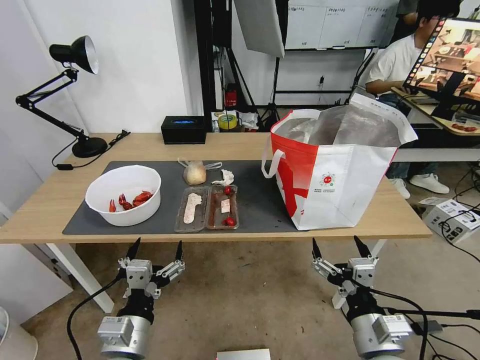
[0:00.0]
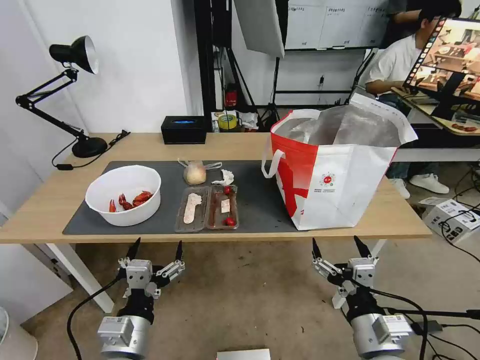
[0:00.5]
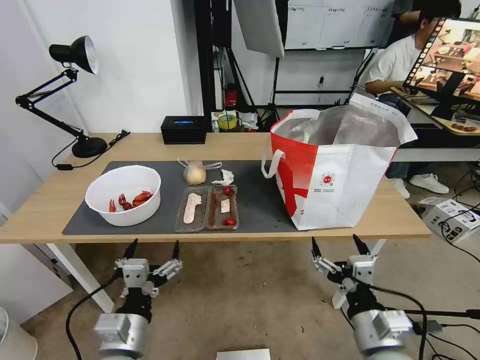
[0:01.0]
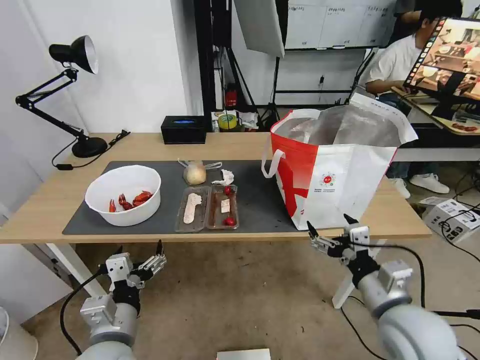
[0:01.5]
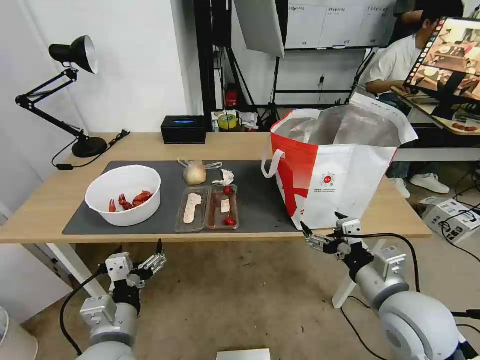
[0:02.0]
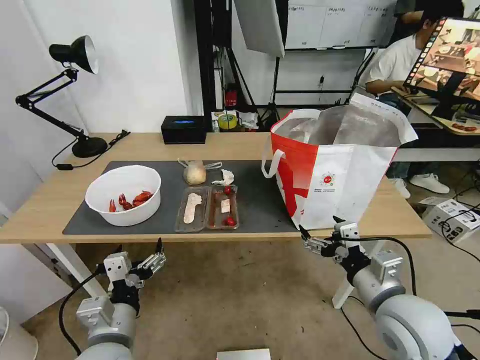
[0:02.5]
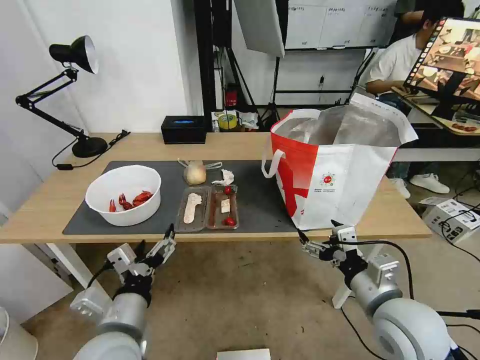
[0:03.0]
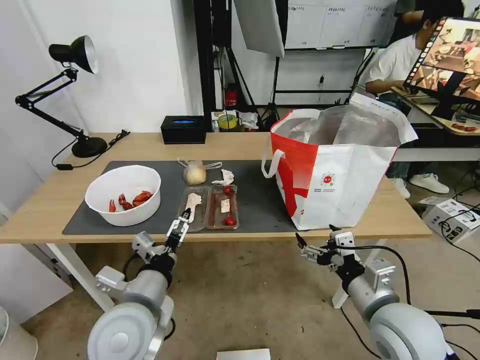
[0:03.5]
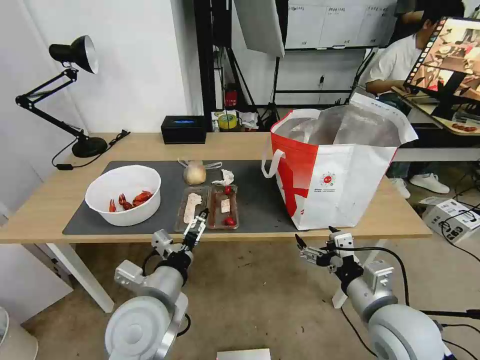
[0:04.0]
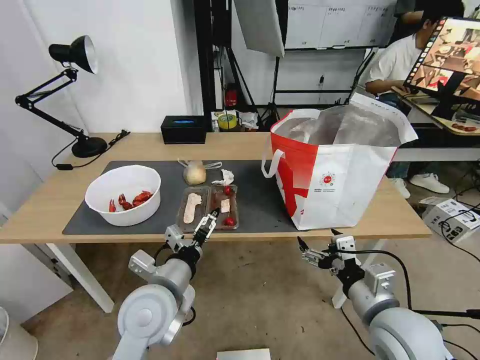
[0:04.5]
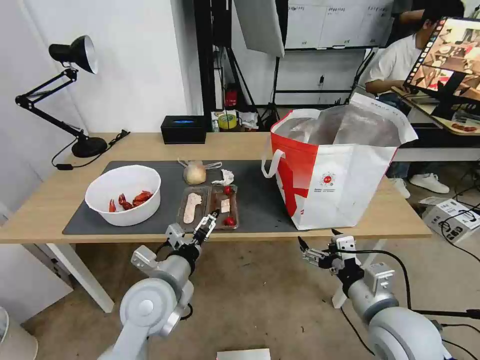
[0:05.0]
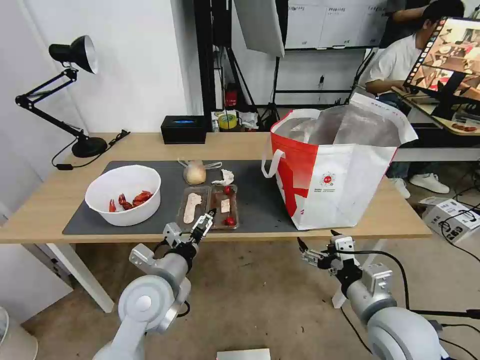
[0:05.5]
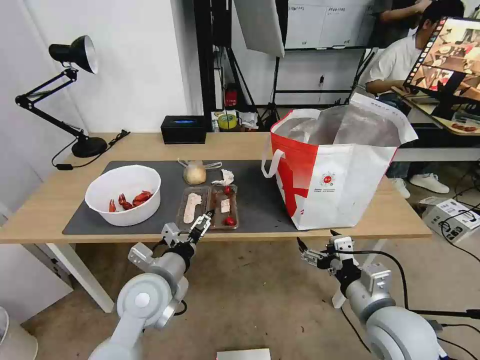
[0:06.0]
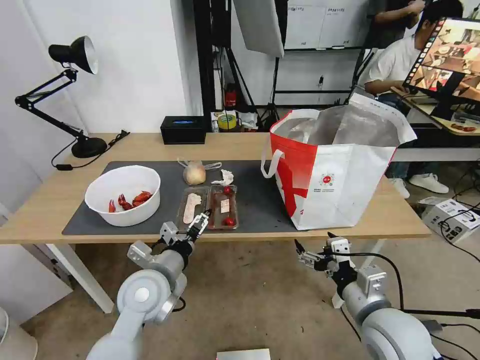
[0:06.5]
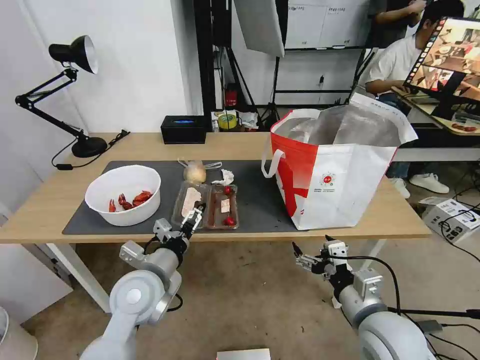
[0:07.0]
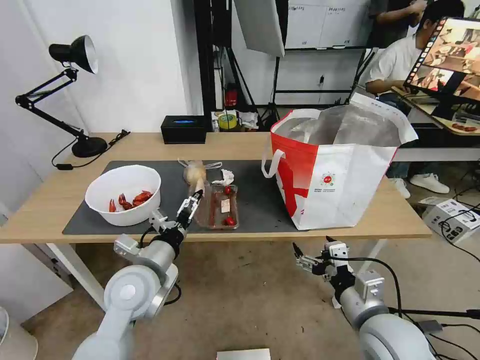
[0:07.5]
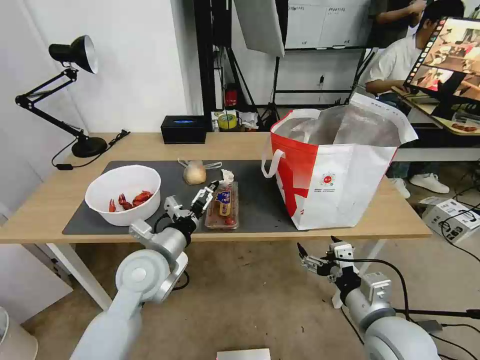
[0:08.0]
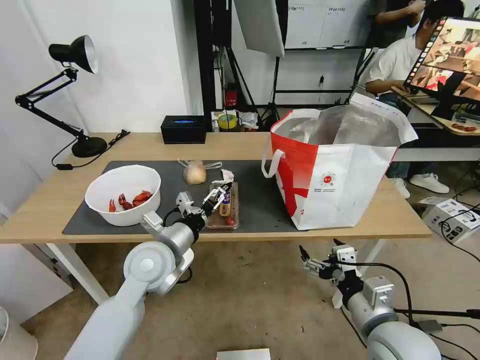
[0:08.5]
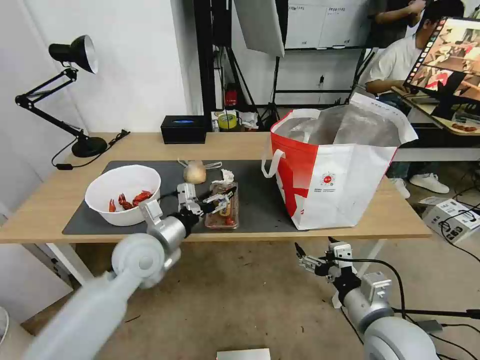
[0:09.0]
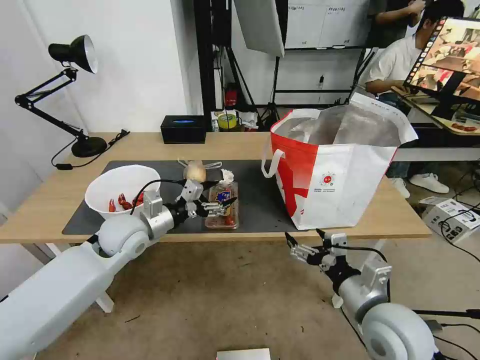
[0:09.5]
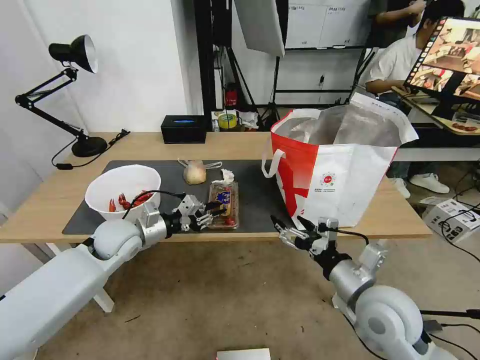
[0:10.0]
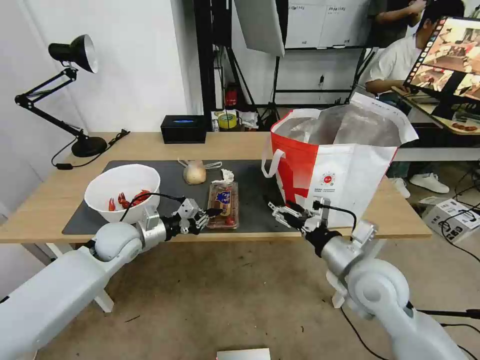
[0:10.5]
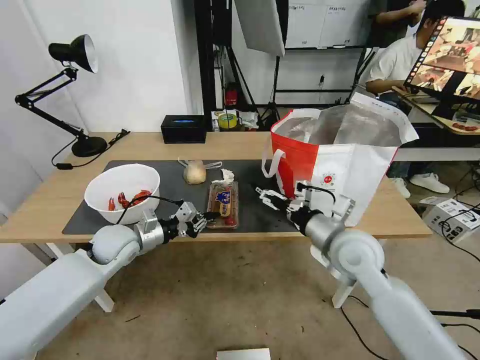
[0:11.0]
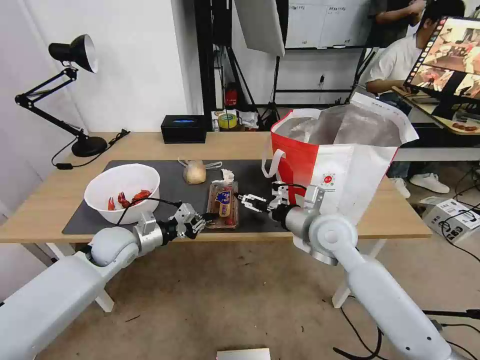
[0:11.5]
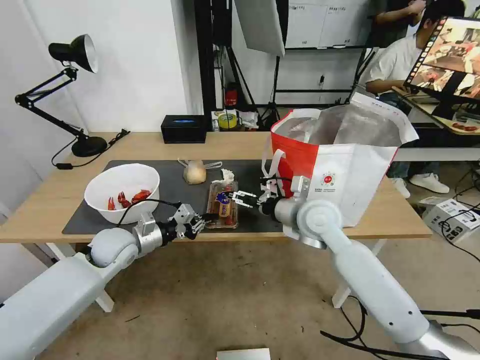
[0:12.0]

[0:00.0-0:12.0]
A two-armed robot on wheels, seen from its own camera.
Task of the whole recording: Pick up the trash from the table and place it into the takeout bag.
0:02.0 to 0:04.0: The left gripper goes about 10 cm forward and to the right.
0:04.0 to 0:06.0: The left gripper heads forward, covering some 5 cm.
0:06.0 to 0:08.0: The grippers make only small movements.
0:08.0 to 0:10.0: The left gripper goes about 15 cm to the left and forward, and closes up. The right gripper moves roughly 5 cm.
0:10.0 to 0:12.0: The right gripper moves forward and to the left, approximately 20 cm.

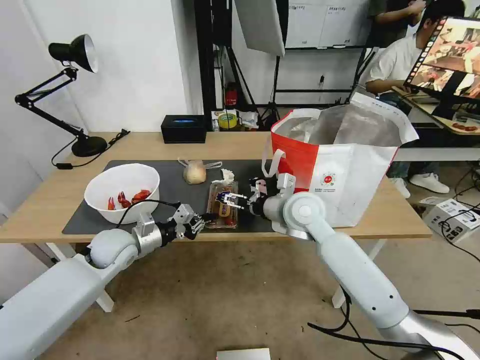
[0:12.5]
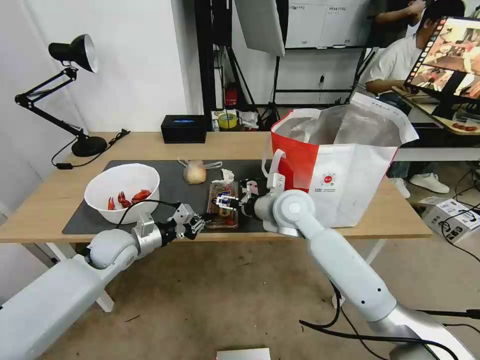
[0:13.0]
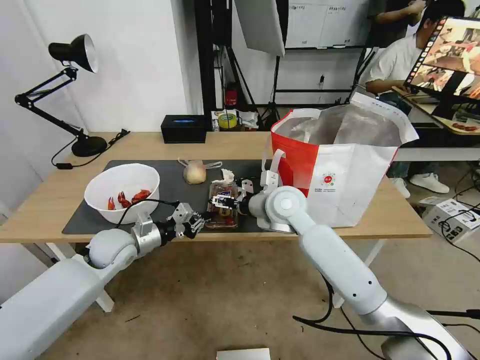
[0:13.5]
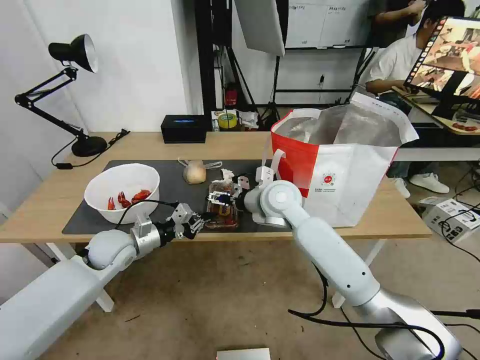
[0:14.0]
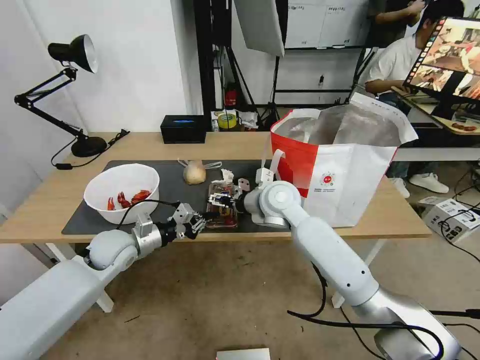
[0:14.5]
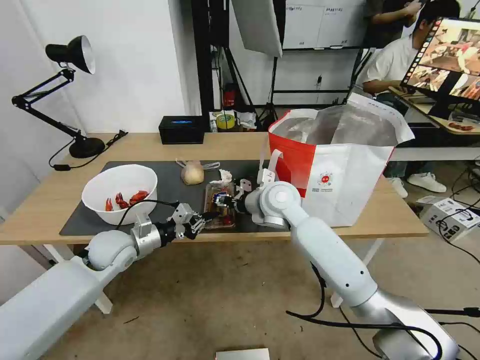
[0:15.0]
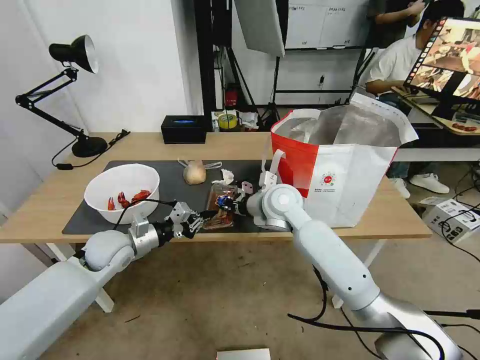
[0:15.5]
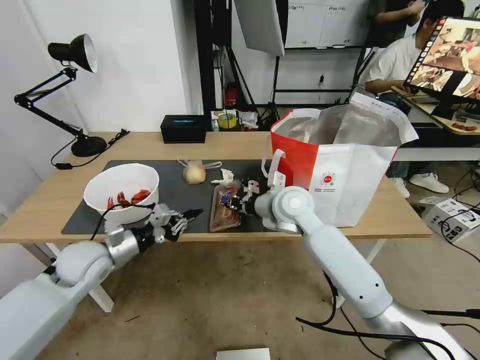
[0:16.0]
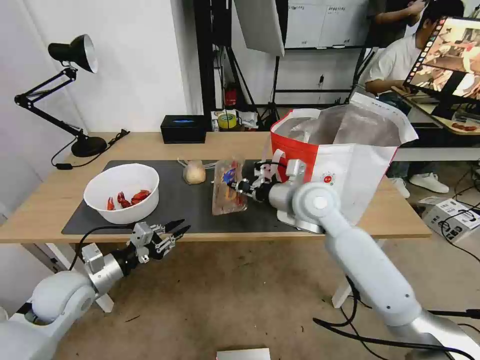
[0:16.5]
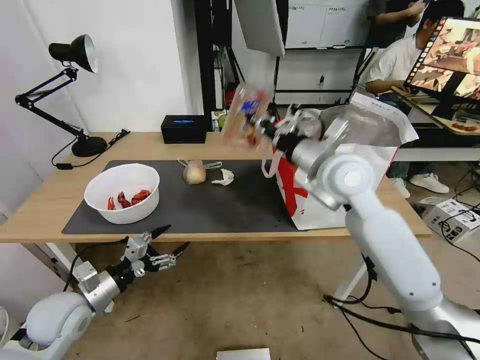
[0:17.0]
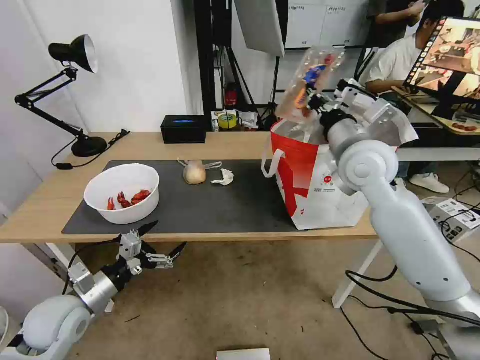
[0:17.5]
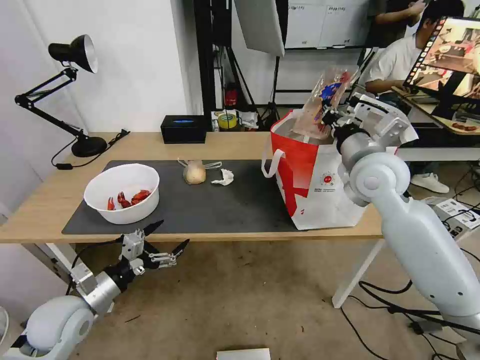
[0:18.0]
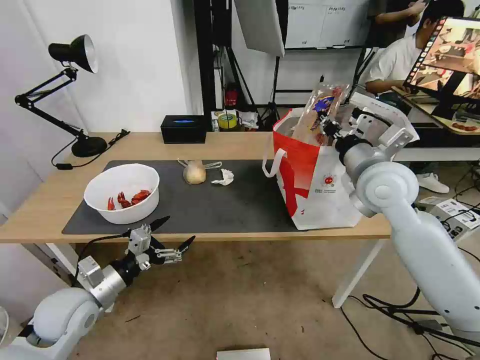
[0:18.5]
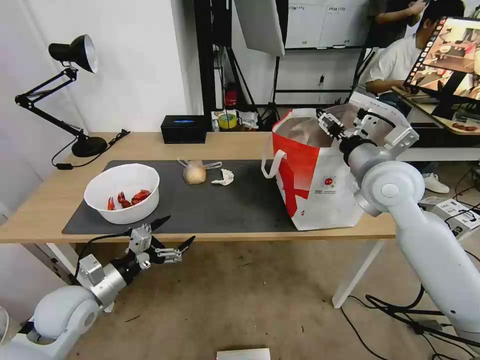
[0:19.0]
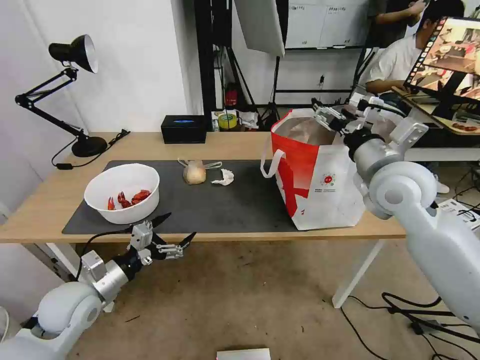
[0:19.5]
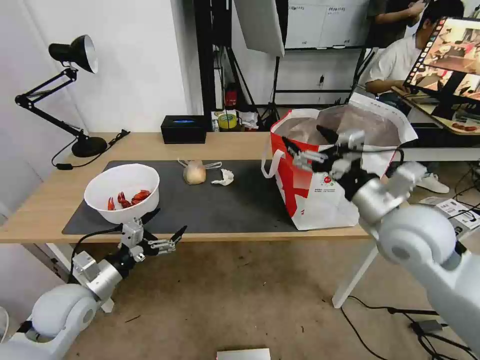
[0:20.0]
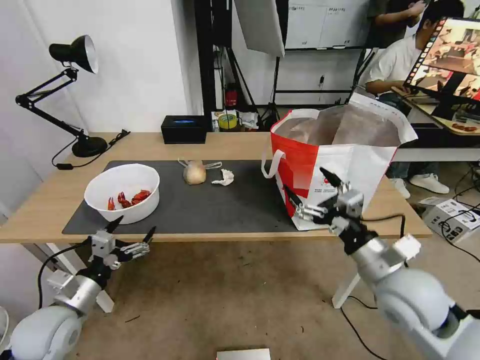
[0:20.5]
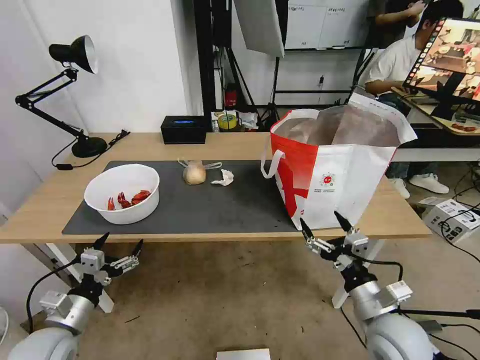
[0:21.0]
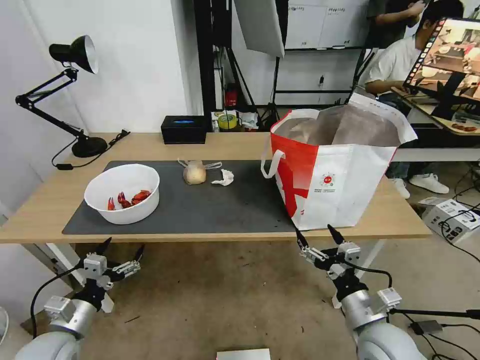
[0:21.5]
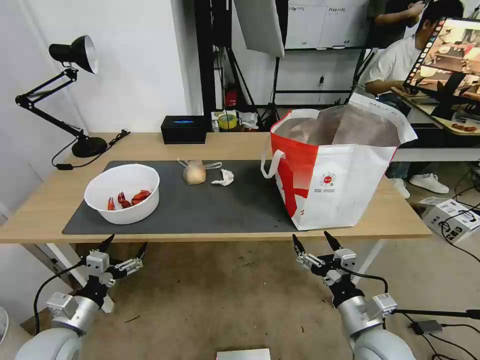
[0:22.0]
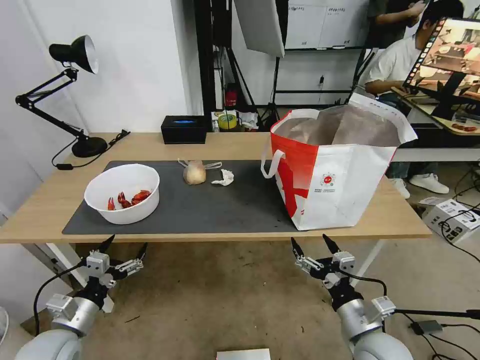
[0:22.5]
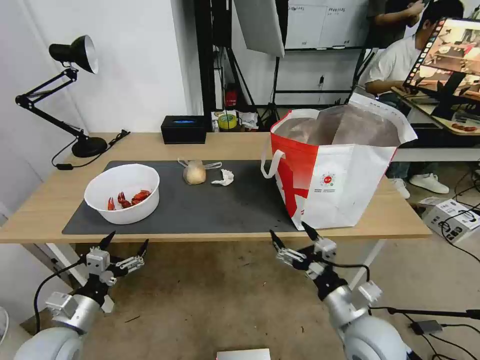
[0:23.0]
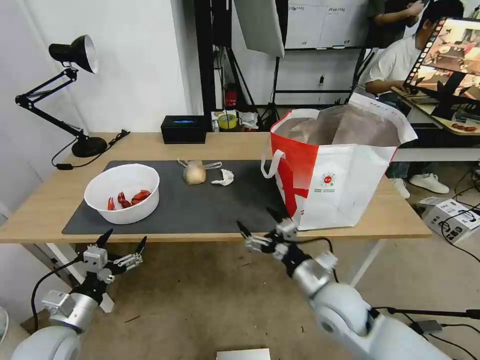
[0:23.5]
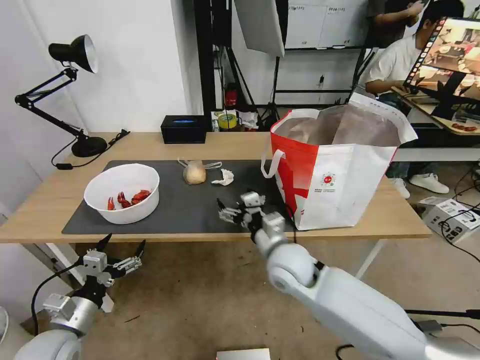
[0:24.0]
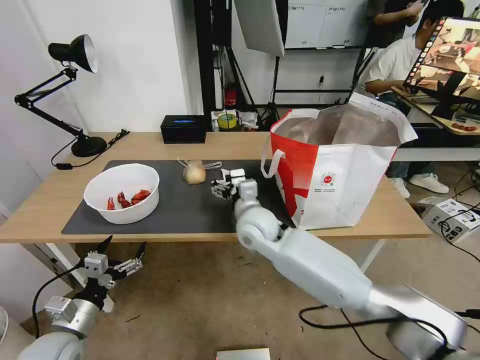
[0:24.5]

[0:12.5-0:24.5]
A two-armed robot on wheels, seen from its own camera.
Task of the whole recording: Pick up the trash from the table and place it into the takeout bag.
0:12.5 to 0:14.5: The right gripper moves about 5 cm.
0:14.5 to 0:16.5: The left gripper shifts about 10 cm backward and to the left, while the right gripper goes some 5 cm to the right, and closes up.
0:16.5 to 0:18.5: The left gripper opens up. Meanwhile the right gripper heads to the right and upward, covering approximately 15 cm.
0:18.5 to 0:20.5: The right gripper travels backward and downward by about 20 cm, and opens.
0:20.5 to 0:22.5: The right gripper is displaced downward and backward by about 15 cm, while the left gripper ends up roughly 5 cm from where it was.
0:22.5 to 0:24.5: The right gripper shifts about 35 cm forward and to the left.

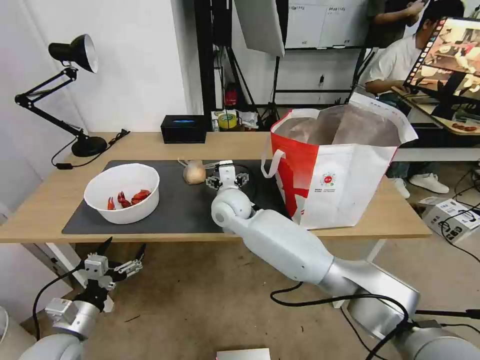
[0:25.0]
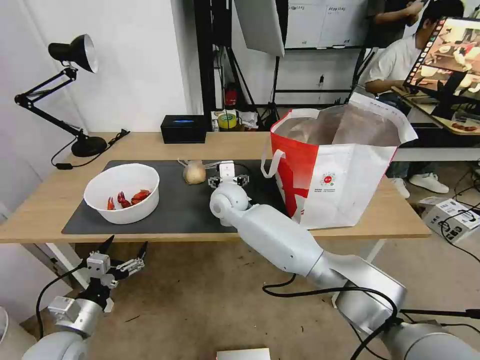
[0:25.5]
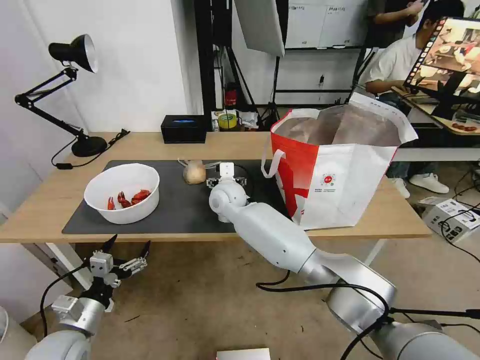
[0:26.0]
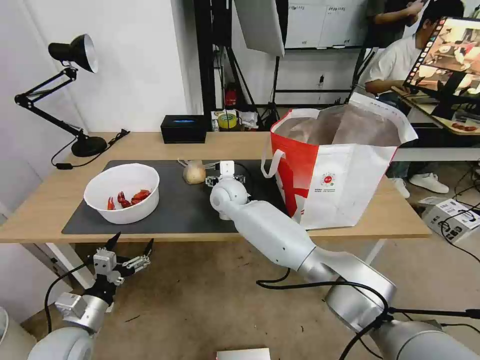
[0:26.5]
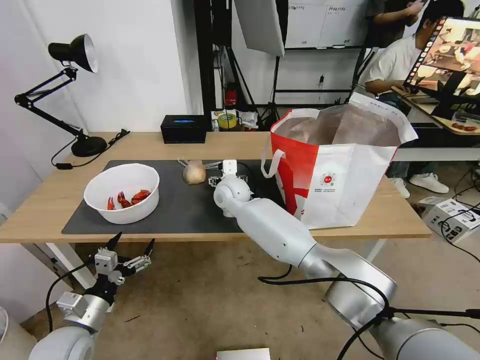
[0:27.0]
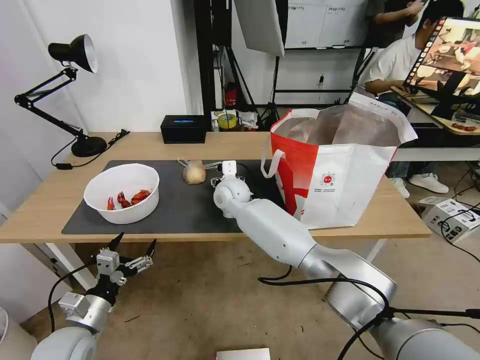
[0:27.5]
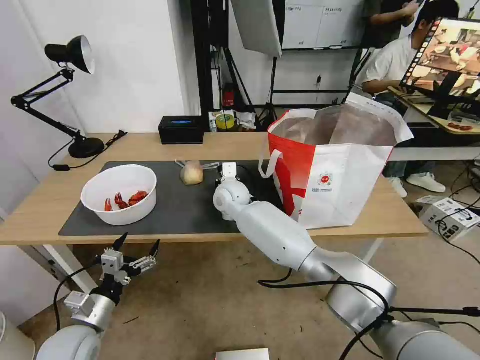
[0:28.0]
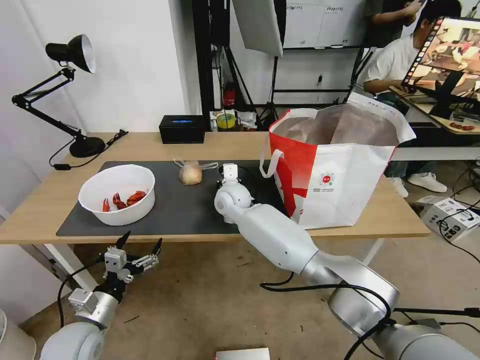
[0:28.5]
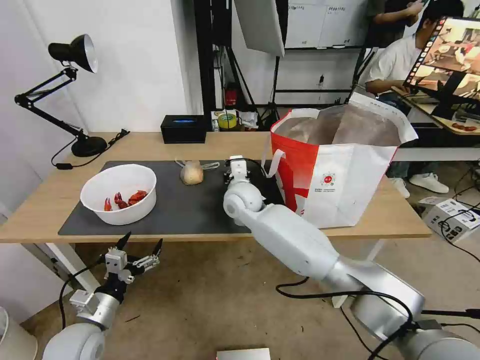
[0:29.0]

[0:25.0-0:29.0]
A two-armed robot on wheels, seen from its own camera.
Task of the whole recording: Pick up the trash from the table and place it into the takeout bag.
0:25.0 to 0:27.0: The right gripper heads forward, covering roughly 5 cm.
0:27.0 to 0:29.0: The right gripper ends up some 5 cm from where it was, and closes up.
